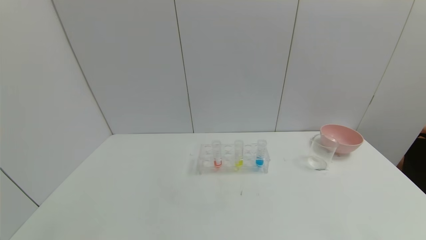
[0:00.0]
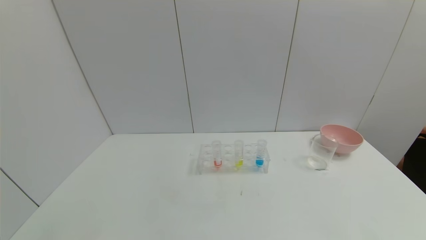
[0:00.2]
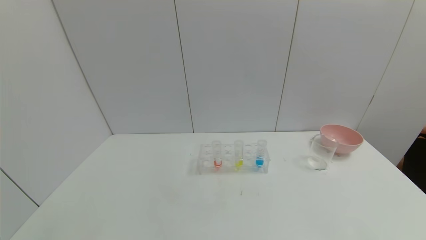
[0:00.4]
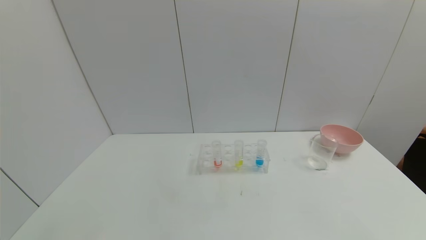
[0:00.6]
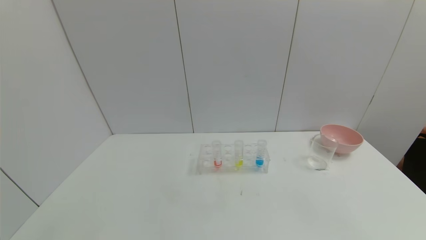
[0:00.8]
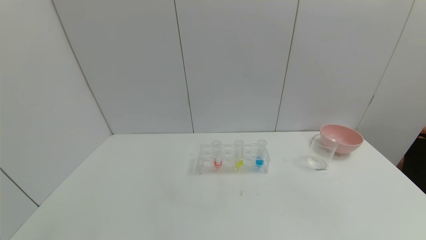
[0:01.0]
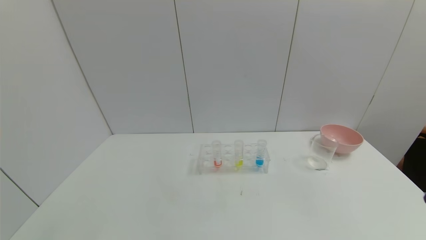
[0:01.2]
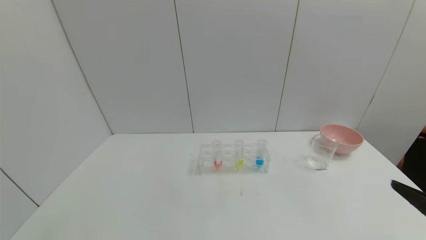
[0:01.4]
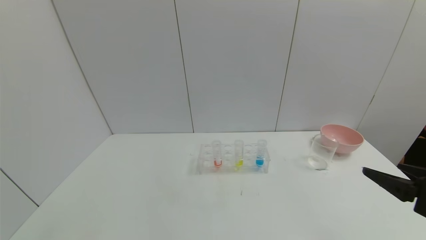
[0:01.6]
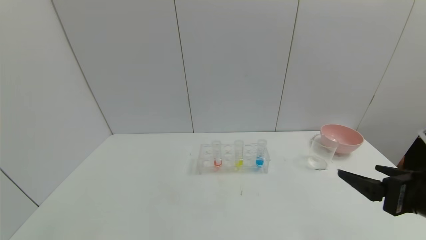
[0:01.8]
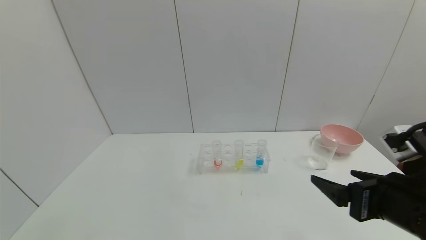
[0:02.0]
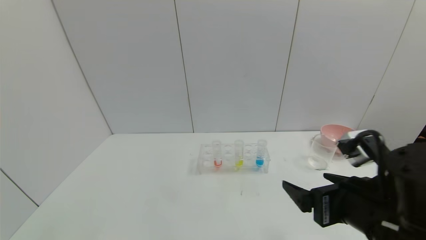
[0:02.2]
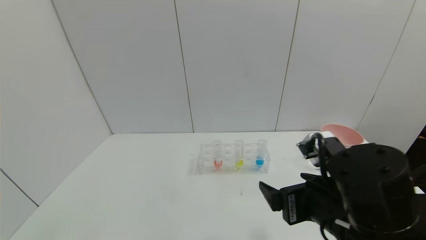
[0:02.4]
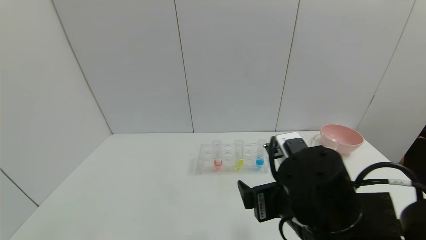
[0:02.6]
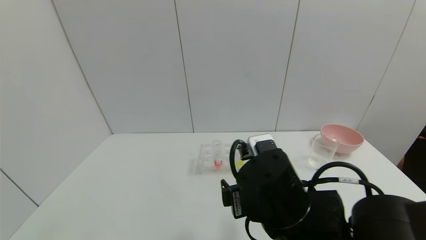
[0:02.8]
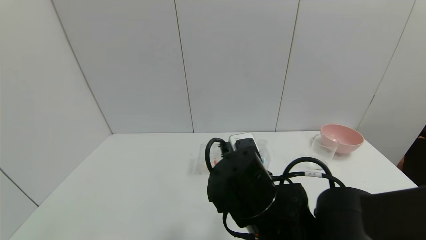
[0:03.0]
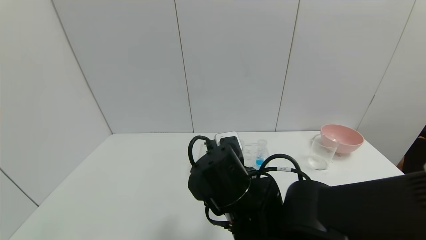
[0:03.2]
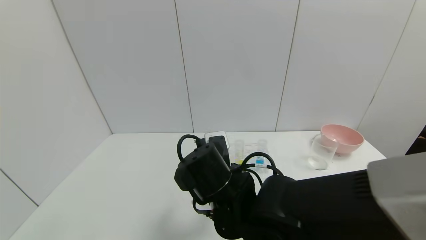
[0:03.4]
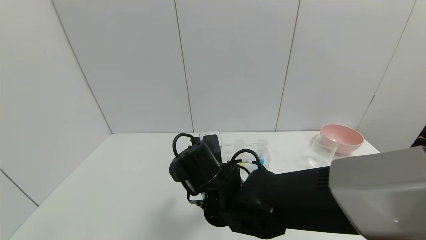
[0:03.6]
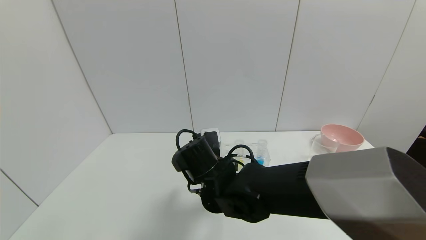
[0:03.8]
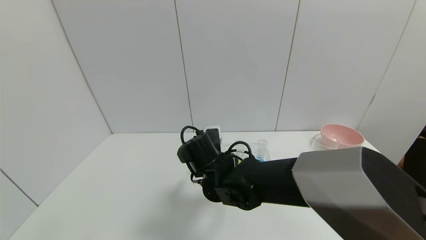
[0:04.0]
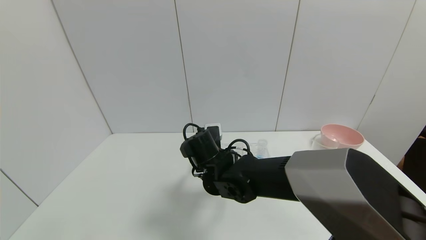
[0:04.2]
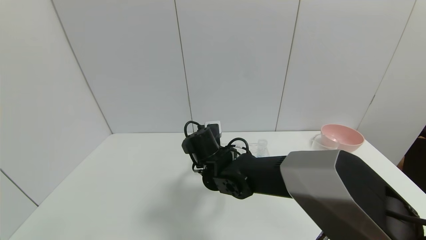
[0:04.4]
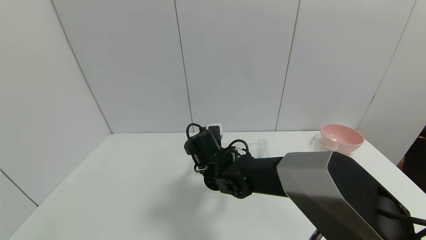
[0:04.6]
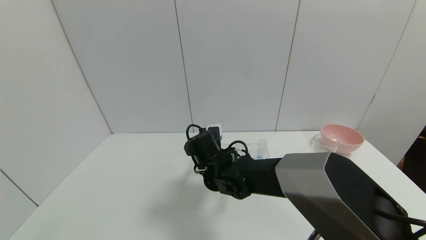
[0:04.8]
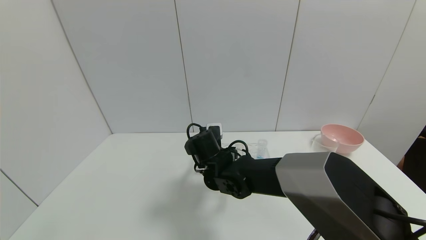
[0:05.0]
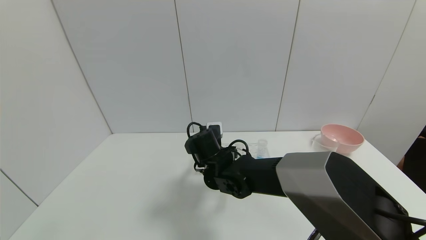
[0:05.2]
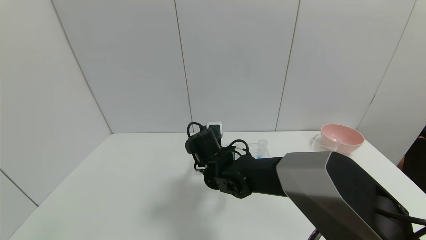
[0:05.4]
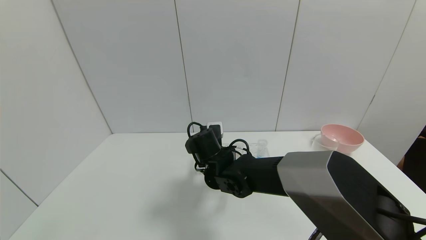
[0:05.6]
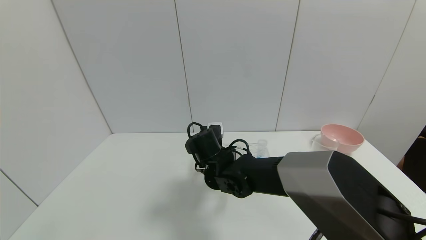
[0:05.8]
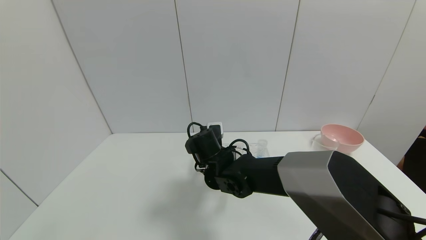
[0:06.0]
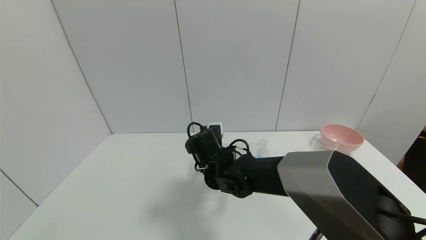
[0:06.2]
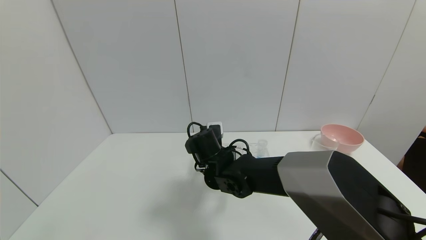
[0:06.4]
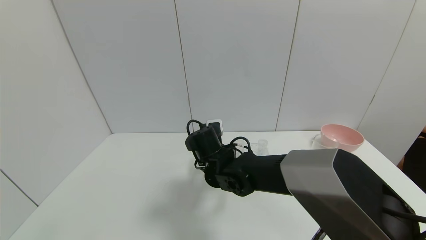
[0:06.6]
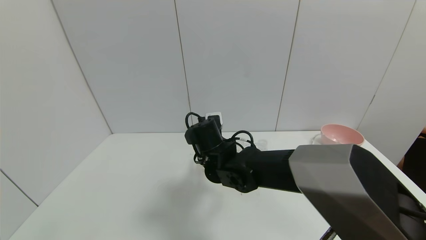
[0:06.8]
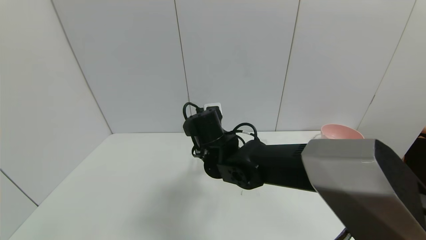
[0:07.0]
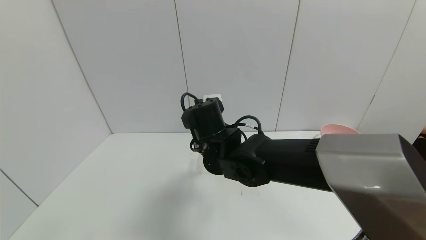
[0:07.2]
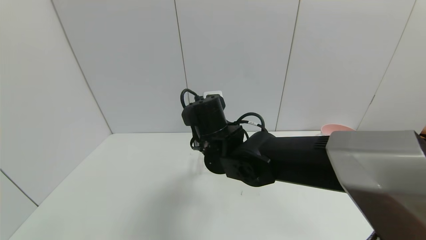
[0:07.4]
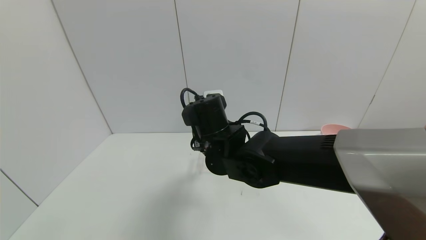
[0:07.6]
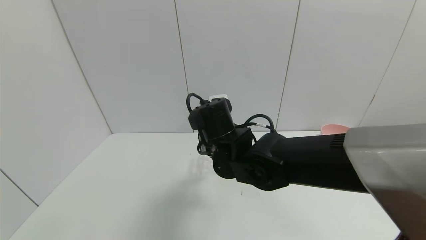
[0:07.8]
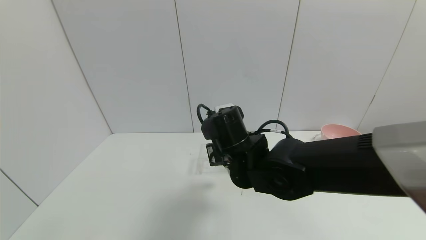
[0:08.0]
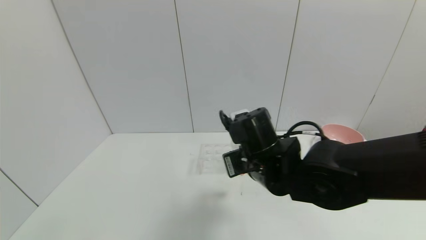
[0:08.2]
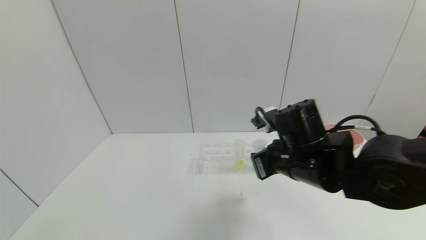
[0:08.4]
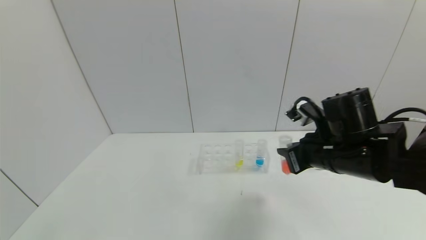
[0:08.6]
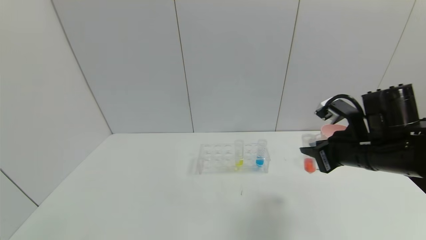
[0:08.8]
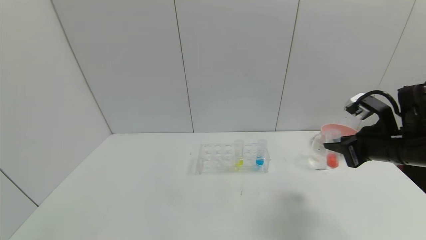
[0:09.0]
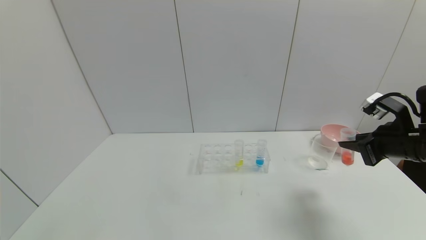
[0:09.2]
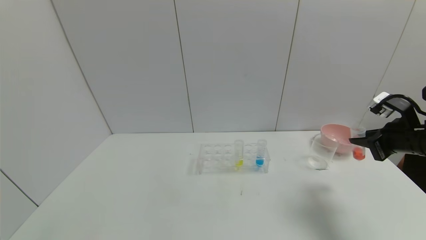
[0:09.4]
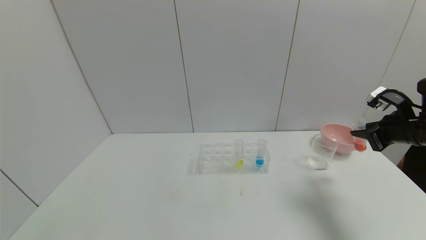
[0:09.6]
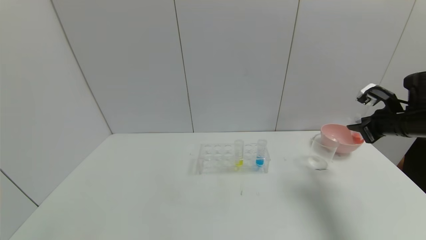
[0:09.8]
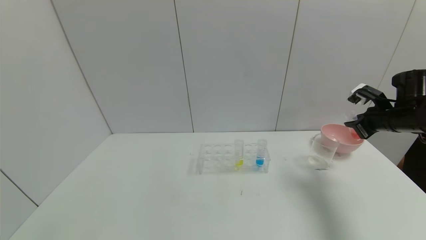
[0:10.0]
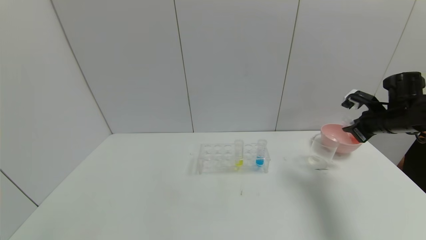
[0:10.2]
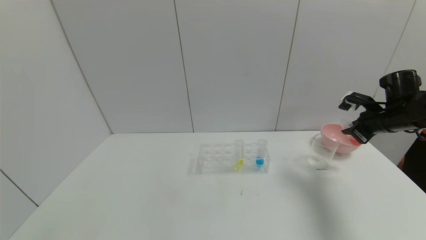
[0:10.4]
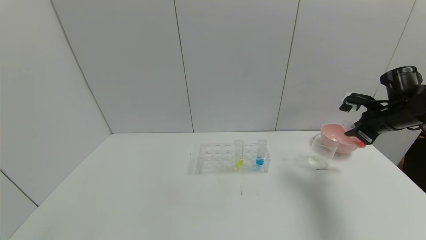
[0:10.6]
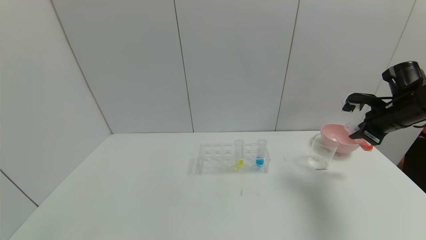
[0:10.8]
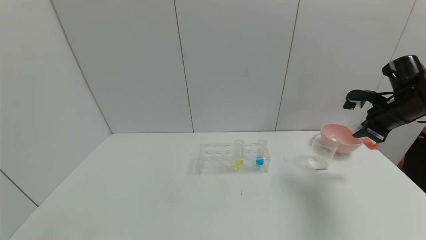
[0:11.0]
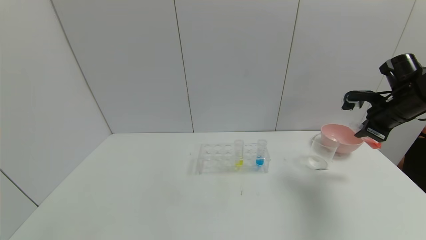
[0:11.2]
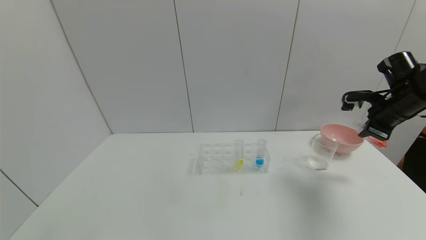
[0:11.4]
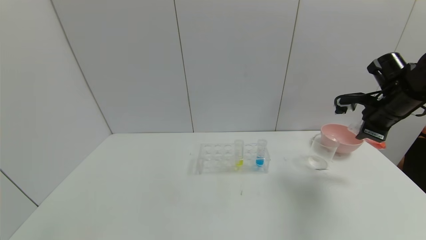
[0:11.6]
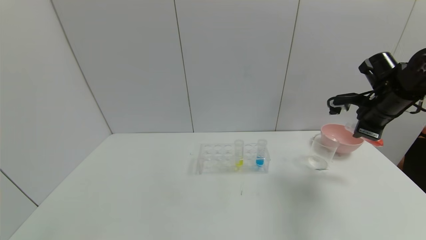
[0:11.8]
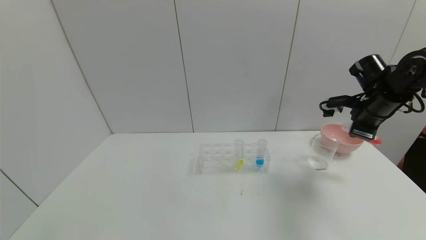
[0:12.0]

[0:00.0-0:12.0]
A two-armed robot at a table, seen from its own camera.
Task of the whole recording: pick up the test tube with yellow pigment and the test tube with red pigment by grippers and pour them into the beaker.
Step, 0:00.0 to 0:08.6: Pick up the test tube containing the red reagent with right gripper.
0:00.0 to 0:01.6: The right gripper goes approximately 20 cm forward and upward.
0:01.6 to 0:03.0: The right gripper goes some 25 cm to the left.
0:03.0 to 0:04.4: The right gripper heads forward, to the left and downward, covering about 20 cm.
0:04.4 to 0:06.0: The right gripper closes.
0:06.0 to 0:07.6: The right gripper heads upward, covering about 10 cm.
0:07.6 to 0:09.0: The right gripper shifts roughly 30 cm to the right.
0:09.0 to 0:10.4: The right gripper is displaced forward and to the right by some 15 cm.
0:10.4 to 0:12.0: The right gripper heads to the left, covering roughly 5 cm.

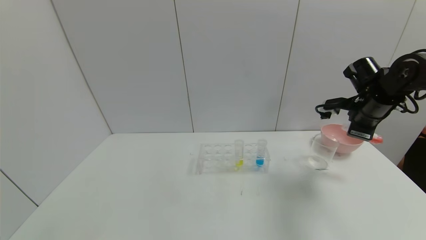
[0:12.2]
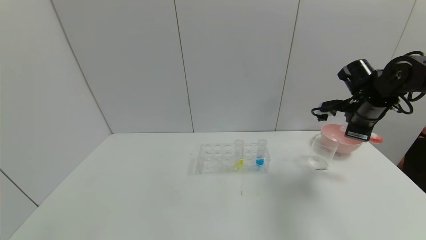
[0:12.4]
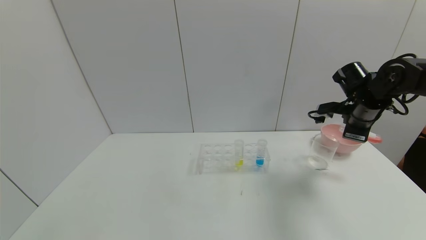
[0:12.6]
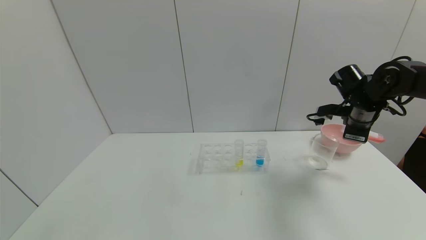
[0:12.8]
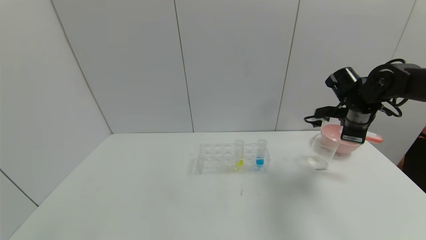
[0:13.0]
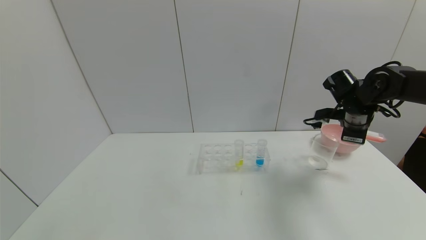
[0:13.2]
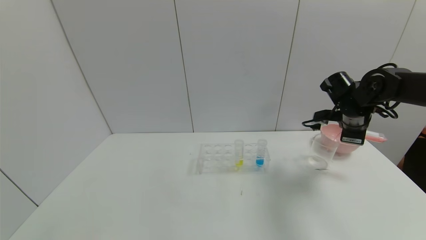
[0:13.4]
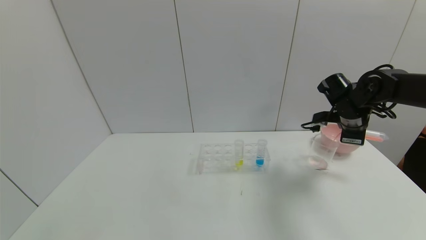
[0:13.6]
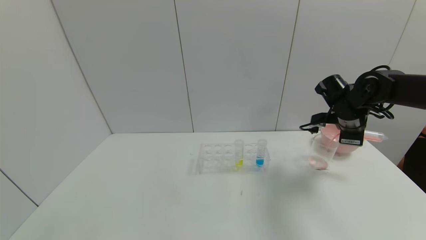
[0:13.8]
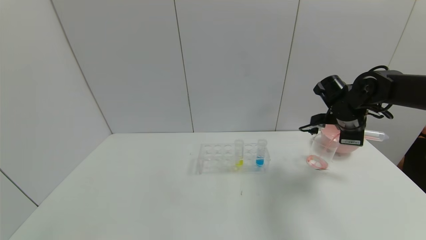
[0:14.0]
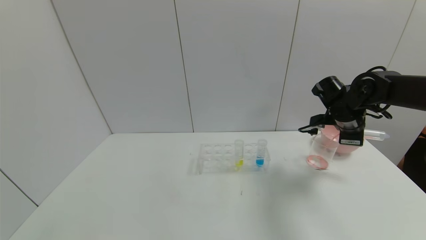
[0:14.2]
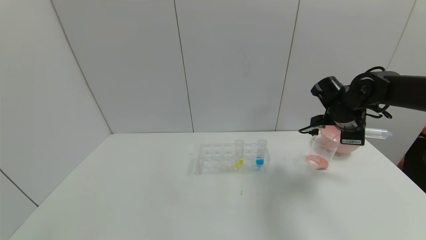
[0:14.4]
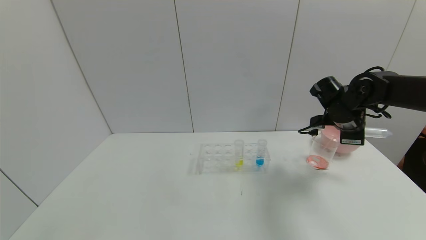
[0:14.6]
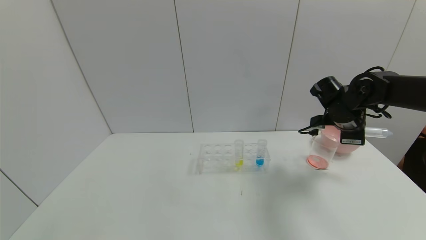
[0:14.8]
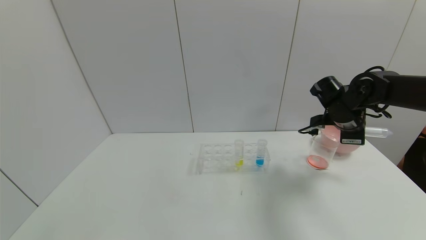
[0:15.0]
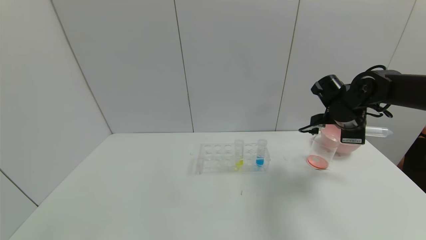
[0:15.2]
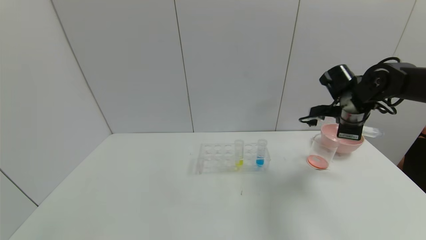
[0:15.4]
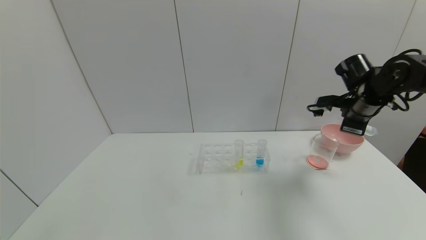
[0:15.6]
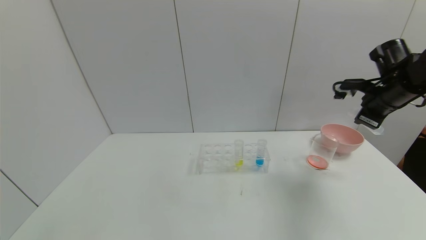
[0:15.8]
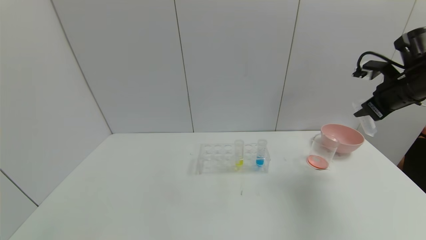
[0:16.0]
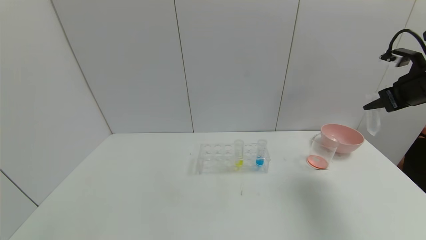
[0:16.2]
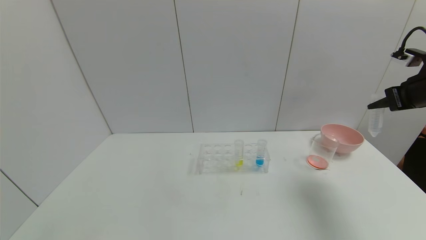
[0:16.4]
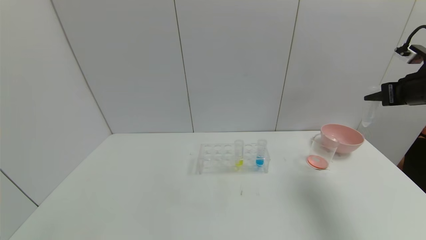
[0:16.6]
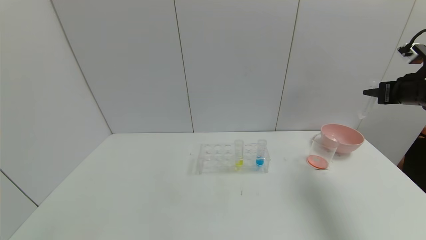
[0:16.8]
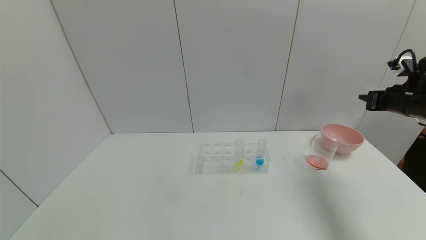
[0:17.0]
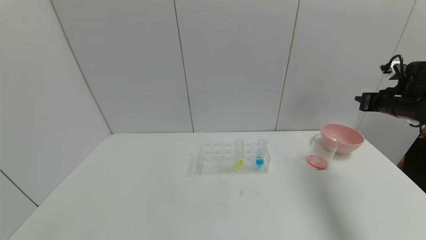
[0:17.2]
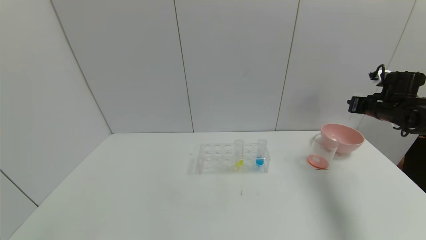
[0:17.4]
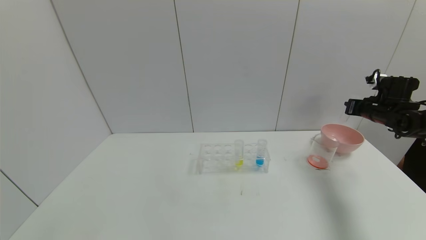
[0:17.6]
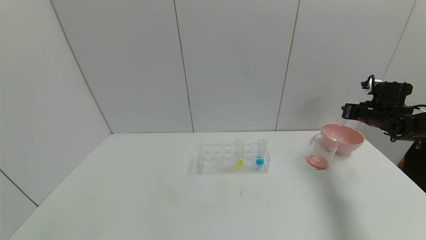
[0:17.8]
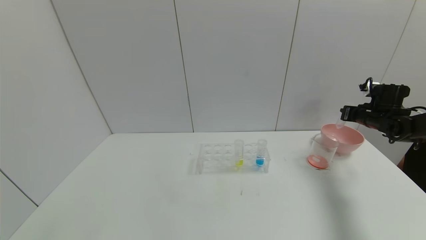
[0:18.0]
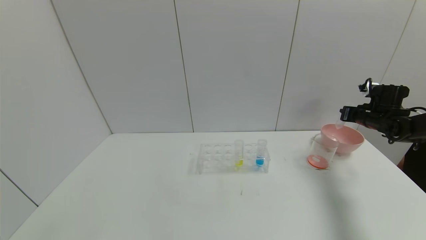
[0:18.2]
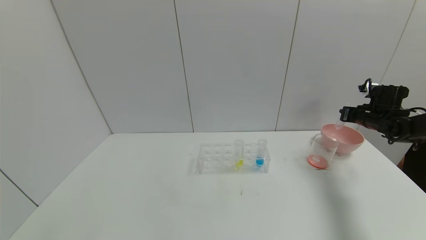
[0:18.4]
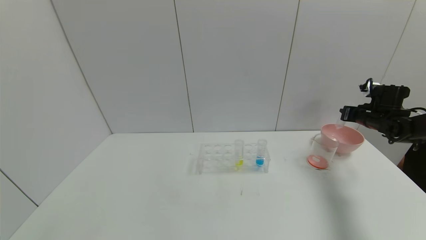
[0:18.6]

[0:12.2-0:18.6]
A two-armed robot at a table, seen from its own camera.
Task of the whole recording: pick up the test tube with yellow pigment and the test tube with red pigment by grippers and pour them into the beaker.
Step, 0:12.2 to 0:16.6: Pour the red reagent into the graduated cylinder with right gripper.
0:12.2 to 0:13.8: The right gripper changes place by some 5 cm.
0:13.8 to 0:15.4: There are only small adjustments of the grippers.
0:15.4 to 0:17.0: The right gripper heads to the right, covering about 15 cm.
0:17.0 to 0:18.6: The right gripper shifts roughly 15 cm forward and downward.
